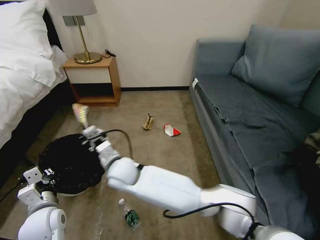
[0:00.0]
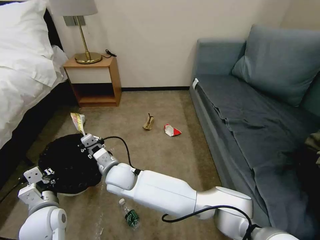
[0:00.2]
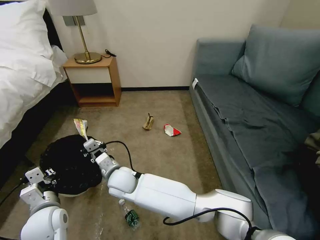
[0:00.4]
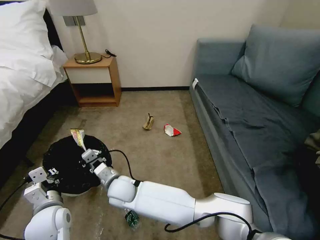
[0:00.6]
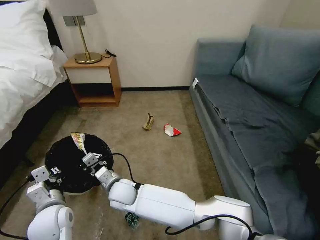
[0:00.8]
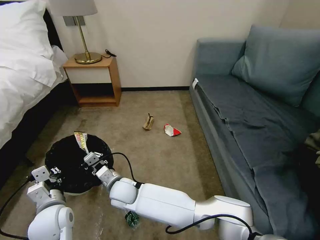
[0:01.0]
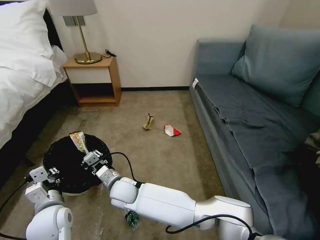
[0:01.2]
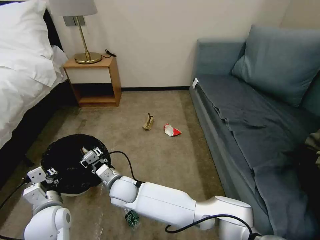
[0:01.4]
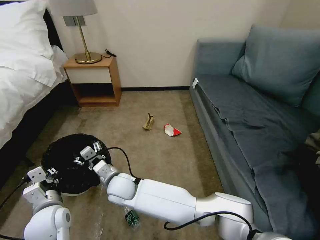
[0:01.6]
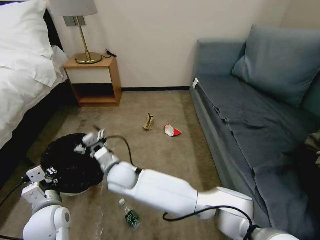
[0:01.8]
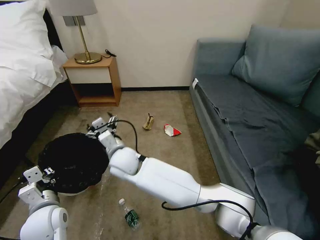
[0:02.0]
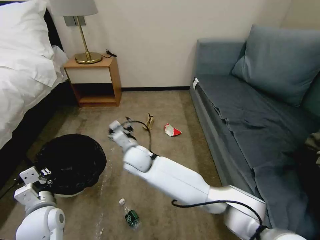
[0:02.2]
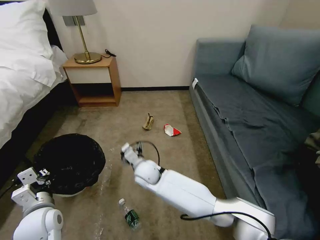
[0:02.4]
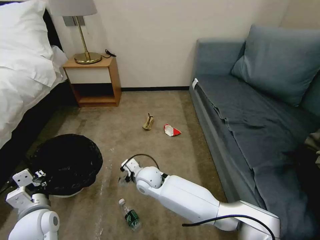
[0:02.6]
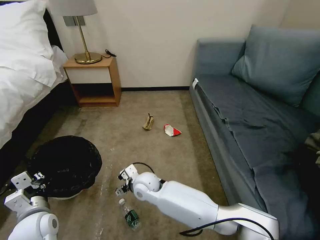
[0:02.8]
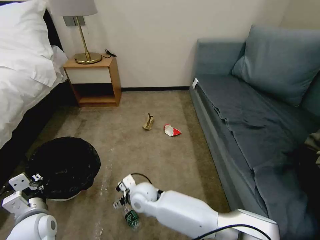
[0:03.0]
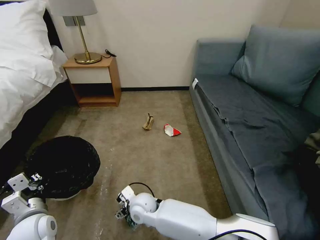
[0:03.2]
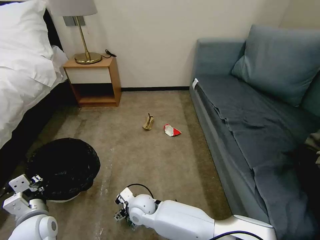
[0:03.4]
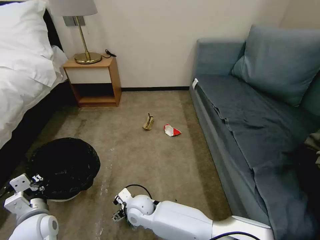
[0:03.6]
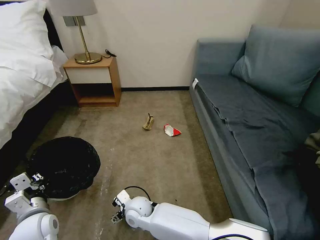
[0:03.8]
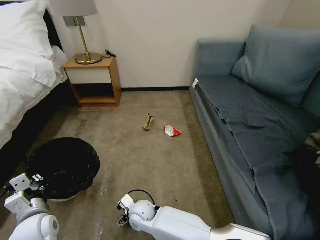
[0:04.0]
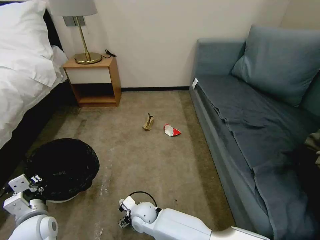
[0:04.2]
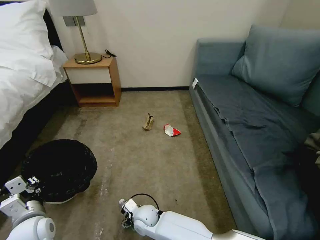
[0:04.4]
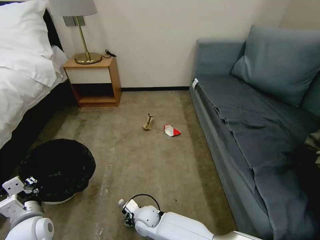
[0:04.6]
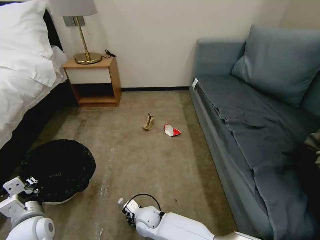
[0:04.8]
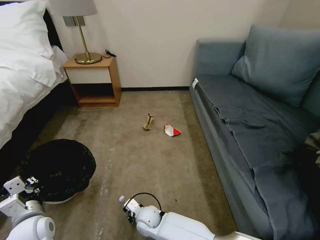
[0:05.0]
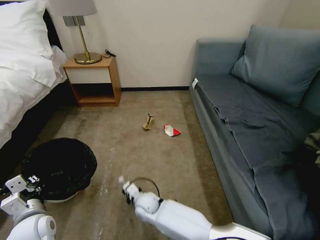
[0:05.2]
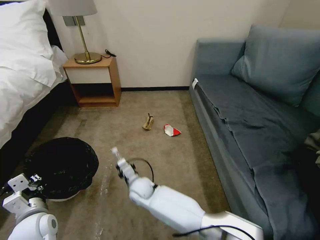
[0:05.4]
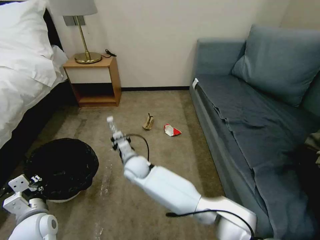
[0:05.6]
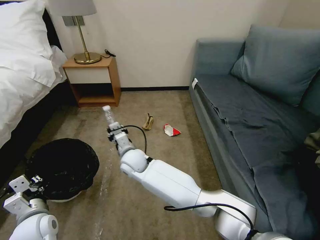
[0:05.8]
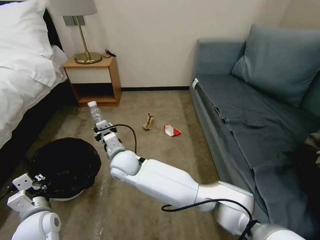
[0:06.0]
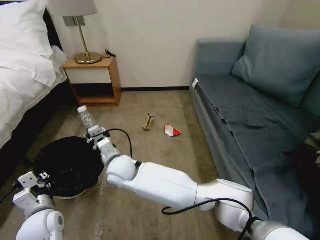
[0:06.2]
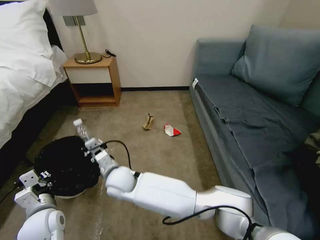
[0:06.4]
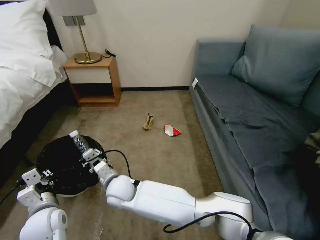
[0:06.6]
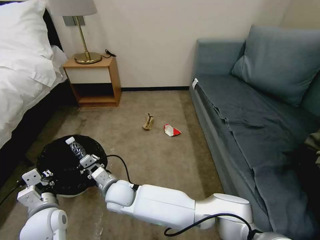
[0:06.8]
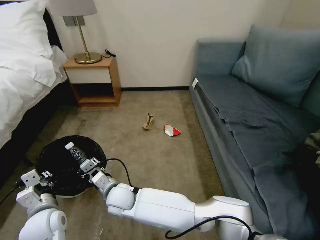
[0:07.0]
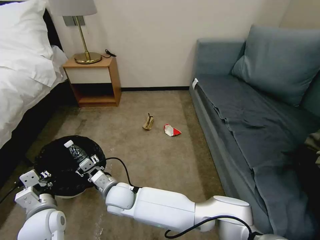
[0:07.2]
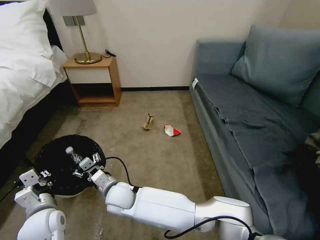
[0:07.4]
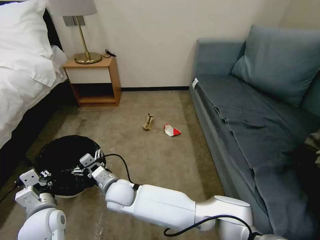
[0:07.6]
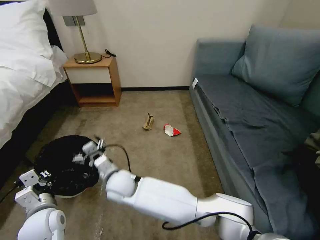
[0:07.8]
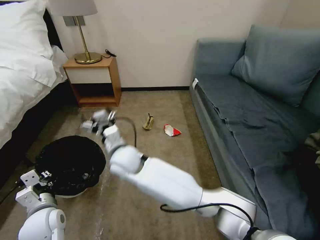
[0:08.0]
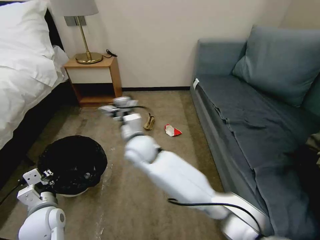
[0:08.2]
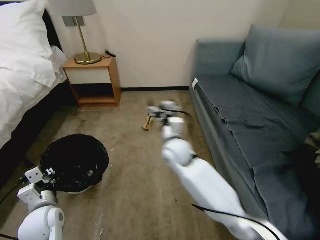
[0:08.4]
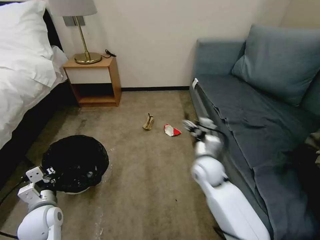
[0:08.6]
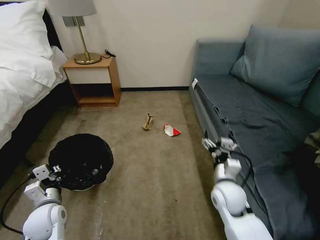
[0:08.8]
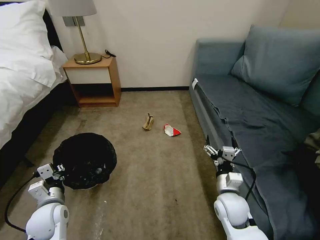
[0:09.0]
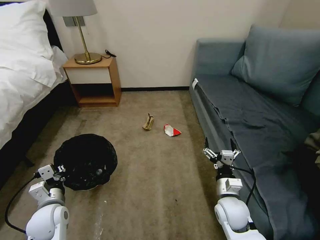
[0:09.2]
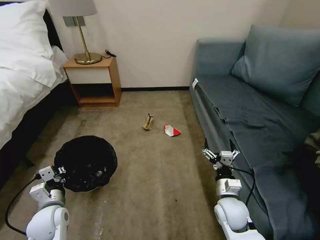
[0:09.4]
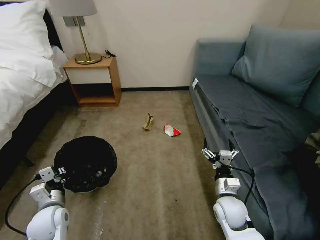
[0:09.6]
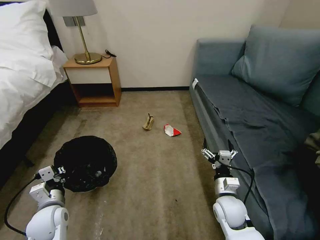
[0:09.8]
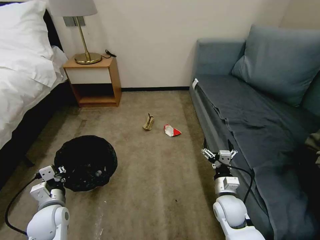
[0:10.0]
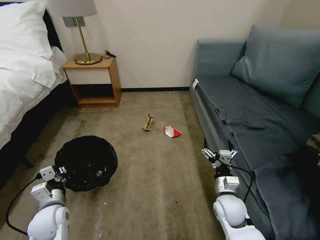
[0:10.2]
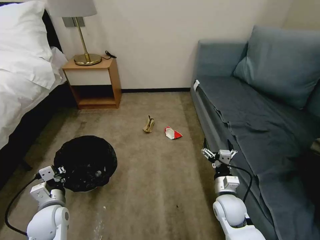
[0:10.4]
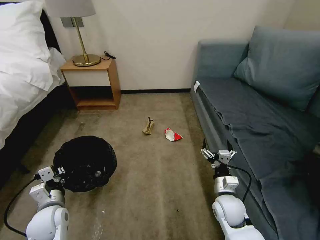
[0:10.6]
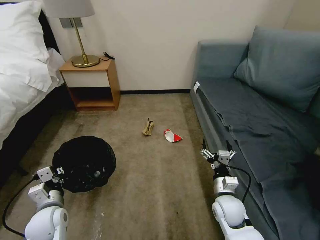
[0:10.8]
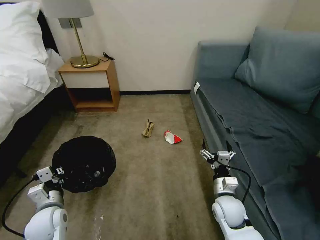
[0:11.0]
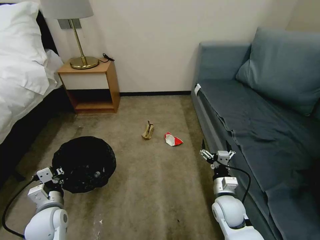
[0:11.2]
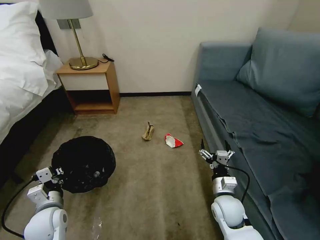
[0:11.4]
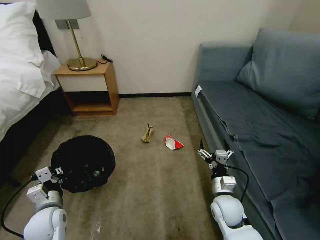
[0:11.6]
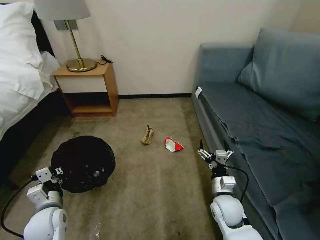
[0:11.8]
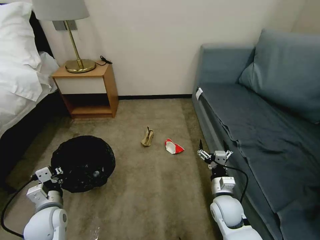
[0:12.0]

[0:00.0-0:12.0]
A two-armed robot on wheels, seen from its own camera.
Task of the whole recording: Pick up the trash bin, then pick up the garbage on the floor and place it into the trash bin.
0:00.0 to 0:01.6: The right gripper travels downward by approximately 5 cm, and opens its fingers.
0:01.6 to 0:03.0: The right gripper travels to the right by about 10 cm, and travels upward and back again, roughly 5 cm each way.
0:03.0 to 0:04.4: The right gripper travels downward and backward by approximately 15 cm.
0:04.4 to 0:06.0: The right gripper heads upward and forward, covering about 25 cm, and closes its fingers.
0:06.0 to 0:07.6: The right gripper heads backward and downward, covering roughly 10 cm, and opens up.
0:07.6 to 0:09.0: The right gripper shifts roughly 35 cm to the right.
0:09.0 to 0:10.4: The grippers move only a little.

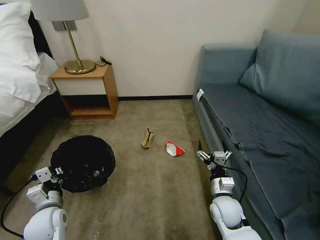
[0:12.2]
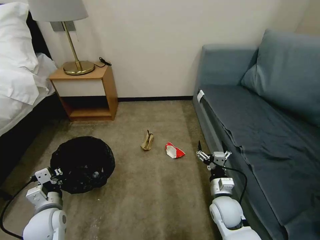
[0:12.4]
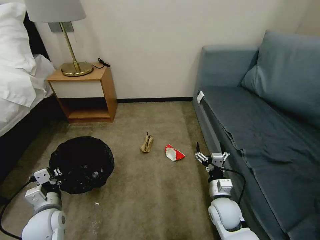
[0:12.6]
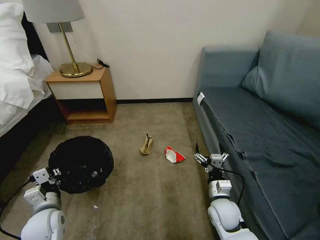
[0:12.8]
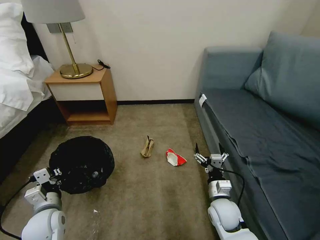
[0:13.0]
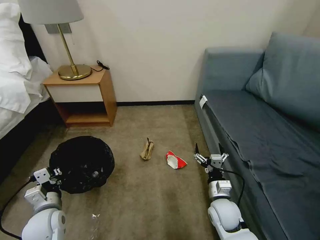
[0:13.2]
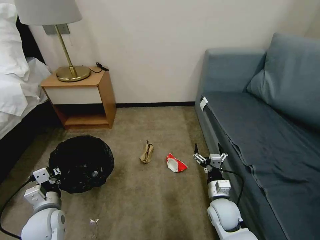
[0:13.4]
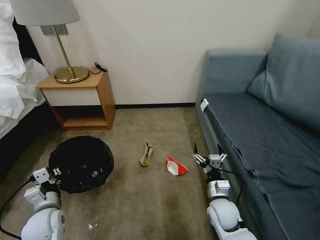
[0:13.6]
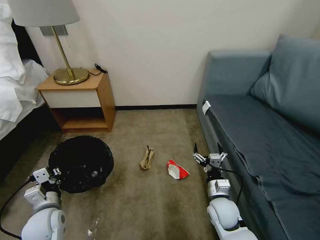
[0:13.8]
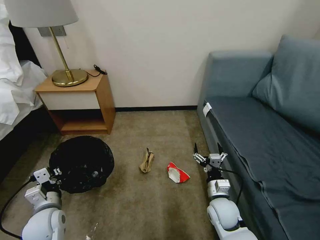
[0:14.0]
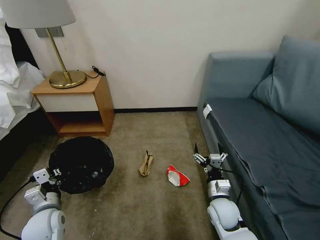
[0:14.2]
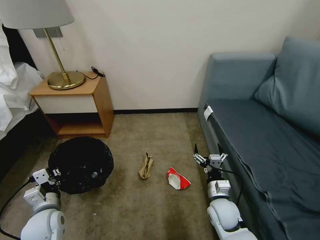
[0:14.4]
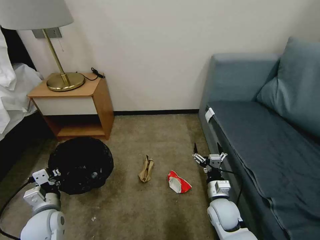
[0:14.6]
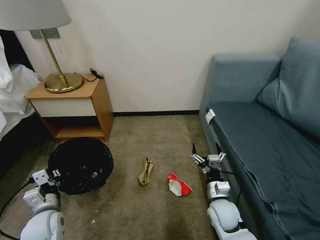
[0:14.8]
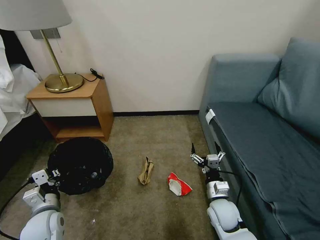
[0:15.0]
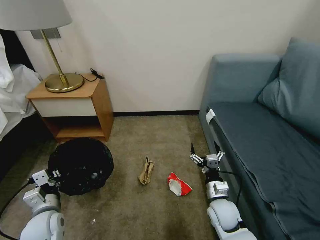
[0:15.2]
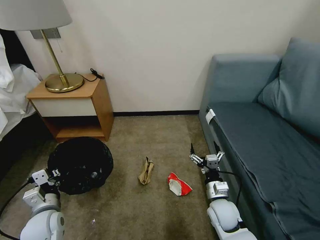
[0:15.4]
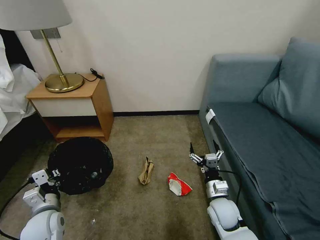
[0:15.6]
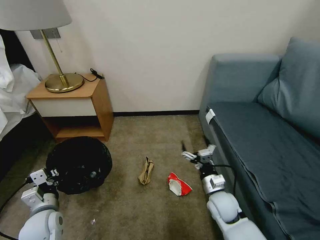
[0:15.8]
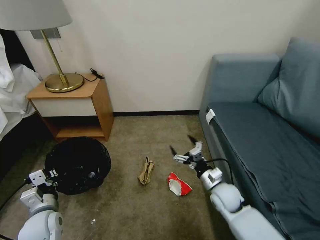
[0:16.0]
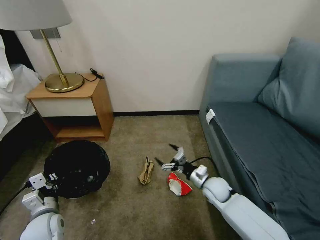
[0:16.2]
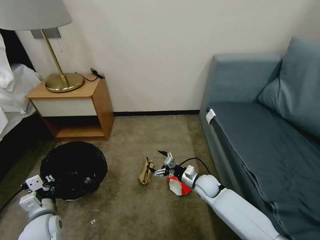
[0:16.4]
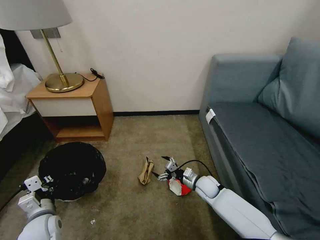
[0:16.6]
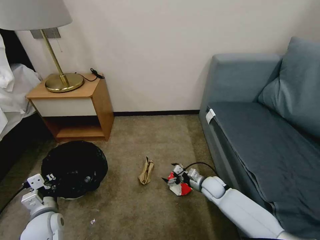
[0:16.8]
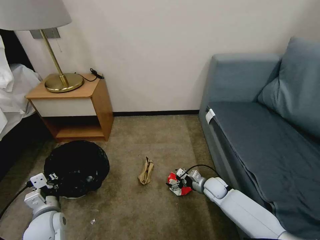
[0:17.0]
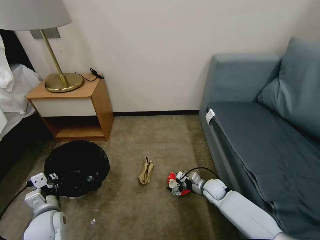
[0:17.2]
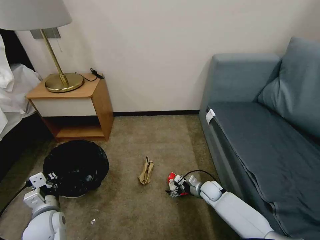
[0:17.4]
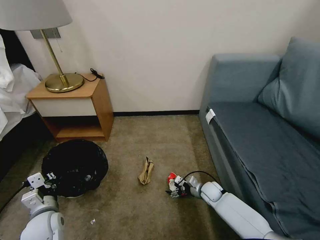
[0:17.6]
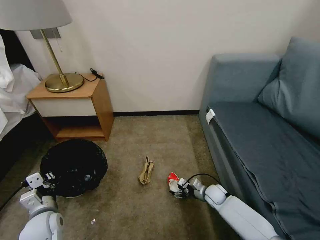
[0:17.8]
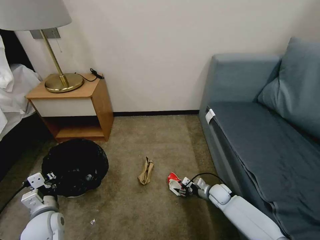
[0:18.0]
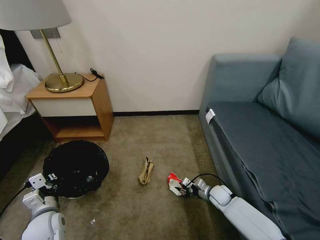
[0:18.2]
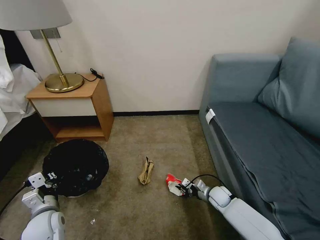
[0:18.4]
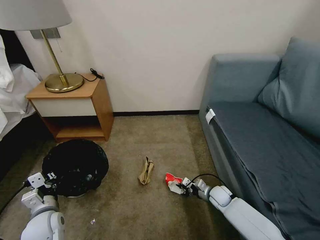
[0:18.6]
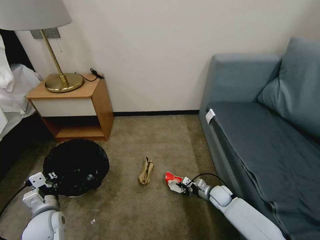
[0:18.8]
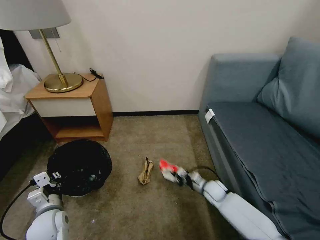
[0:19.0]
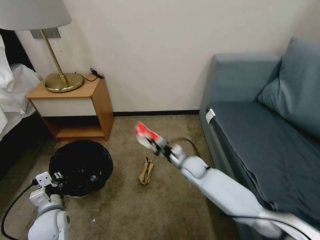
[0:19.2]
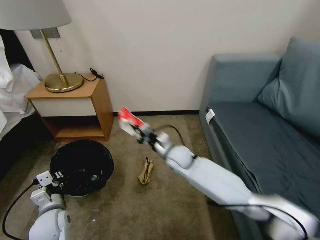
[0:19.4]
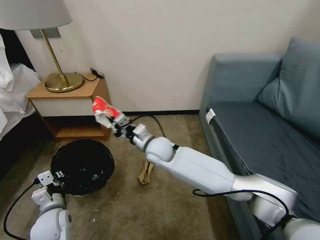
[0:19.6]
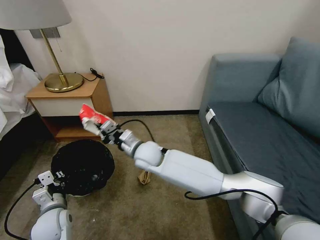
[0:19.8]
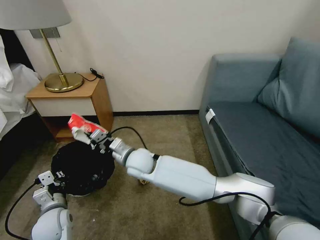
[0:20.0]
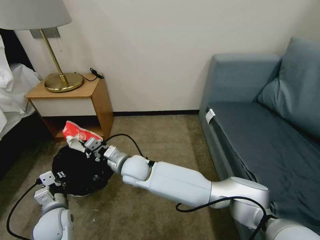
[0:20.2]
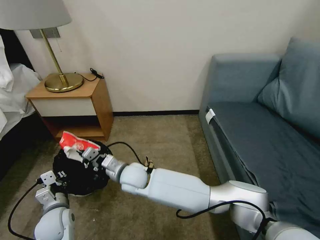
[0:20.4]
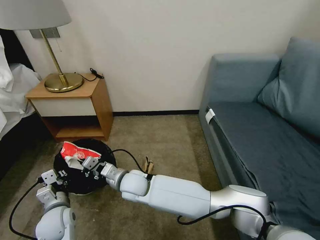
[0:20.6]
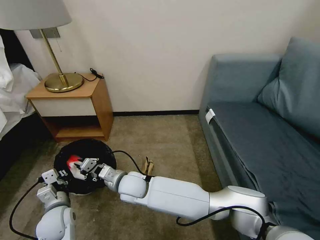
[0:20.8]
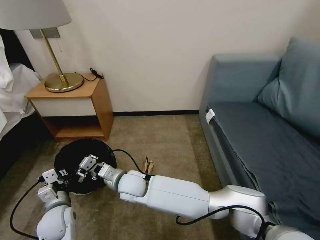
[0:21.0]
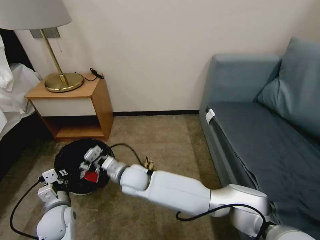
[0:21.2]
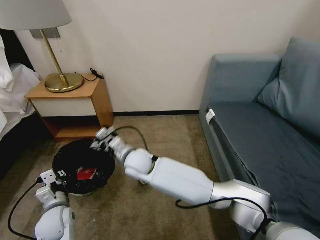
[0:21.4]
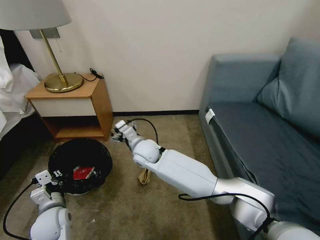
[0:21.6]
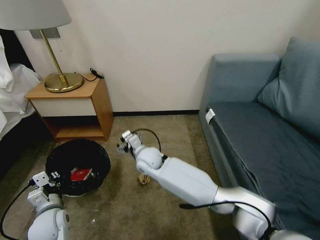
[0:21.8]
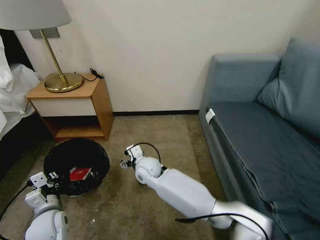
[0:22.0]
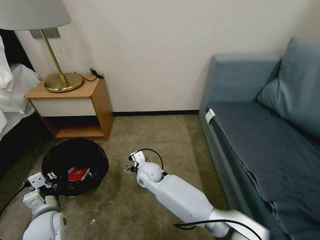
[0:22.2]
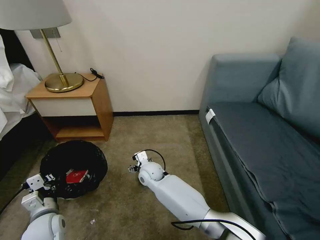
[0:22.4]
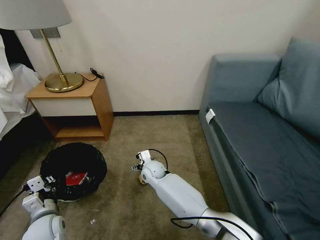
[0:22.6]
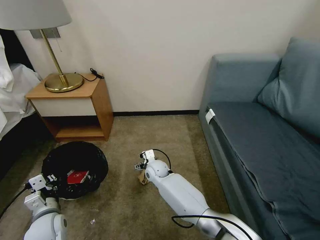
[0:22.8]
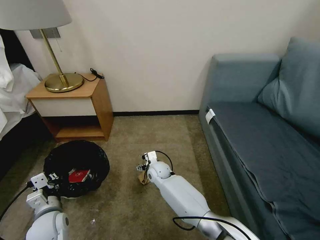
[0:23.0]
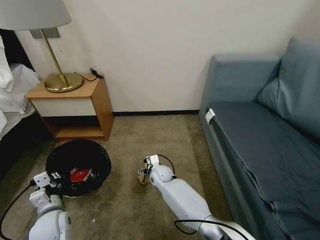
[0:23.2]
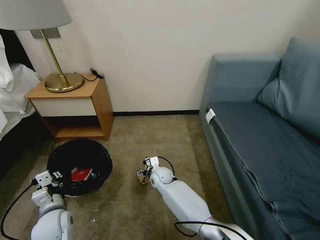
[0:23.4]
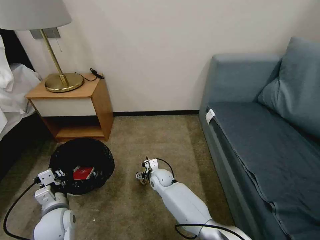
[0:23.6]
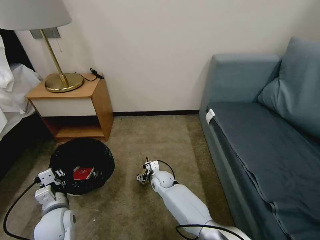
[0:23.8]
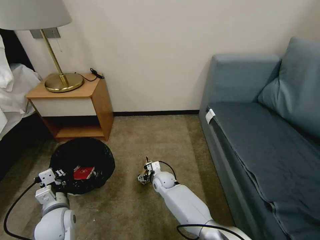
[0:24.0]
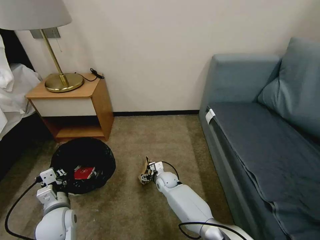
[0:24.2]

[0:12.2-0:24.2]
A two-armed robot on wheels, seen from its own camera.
Task of the whole recording: Pick up the trash bin, then pick up the garbage on the floor and place it into the trash bin.
0:13.8 to 0:15.2: The grippers move only a little.
0:15.2 to 0:16.6: The right gripper moves forward and downward, roughly 15 cm.
0:16.6 to 0:18.2: The right gripper moves to the right and downward, roughly 10 cm, and closes its fingers.
0:18.2 to 0:19.8: The right gripper heads to the left and upward, covering approximately 40 cm.
0:19.8 to 0:21.2: The right gripper heads backward, covering about 5 cm, and opens up.
0:21.2 to 0:22.6: The right gripper travels downward, forward and to the right by approximately 15 cm.
0:22.6 to 0:24.2: The right gripper goes roughly 10 cm downward and to the right.
